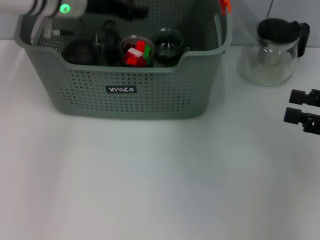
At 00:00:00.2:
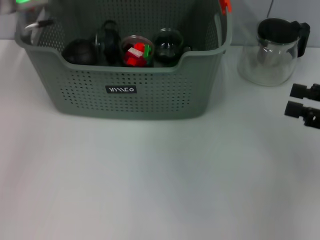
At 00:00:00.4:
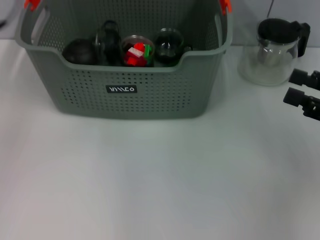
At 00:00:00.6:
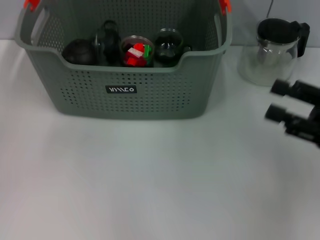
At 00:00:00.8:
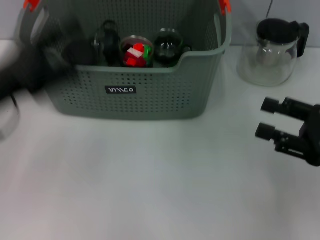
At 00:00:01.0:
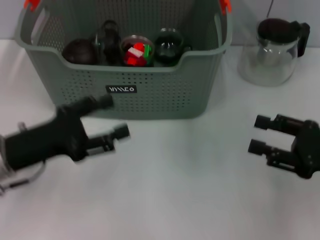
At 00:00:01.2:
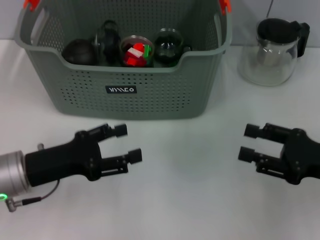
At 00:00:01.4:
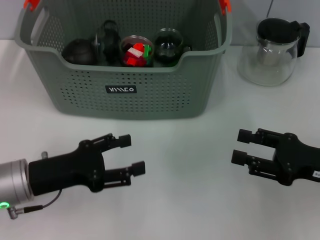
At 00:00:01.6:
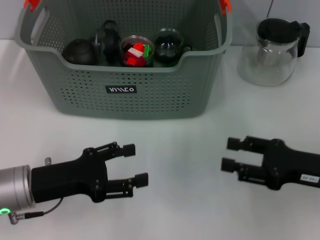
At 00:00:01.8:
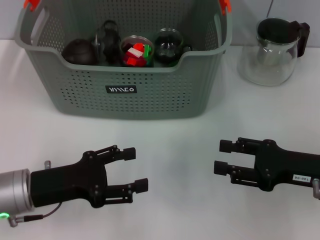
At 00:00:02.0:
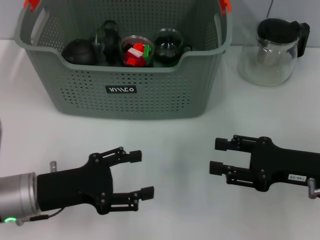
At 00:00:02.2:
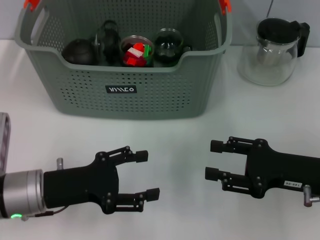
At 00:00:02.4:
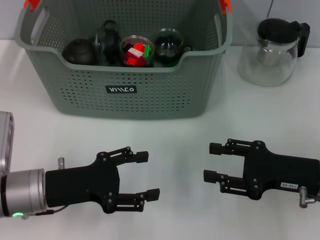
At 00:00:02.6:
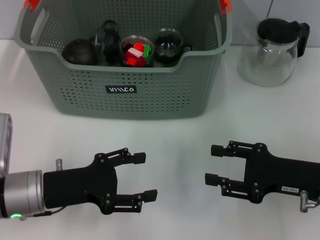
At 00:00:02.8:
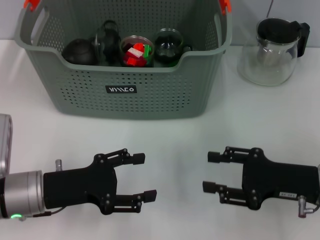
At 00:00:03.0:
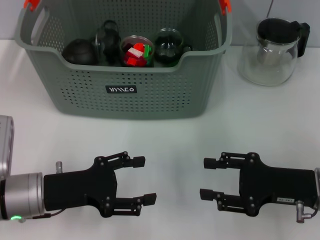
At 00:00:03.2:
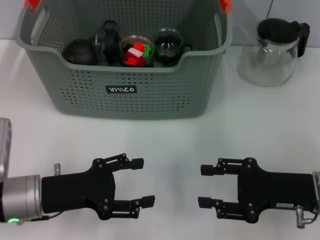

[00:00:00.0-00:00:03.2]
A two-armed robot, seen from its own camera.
Task of the whole recording: pick up the teacup on the table and place it into the storage bin, pick up the block on the table and place it into the storage bin.
00:00:00.0 to 00:00:01.6: The right gripper heads downward and to the left, covering some 10 cm, while the left gripper heads backward and downward, covering approximately 25 cm, and opens up.
